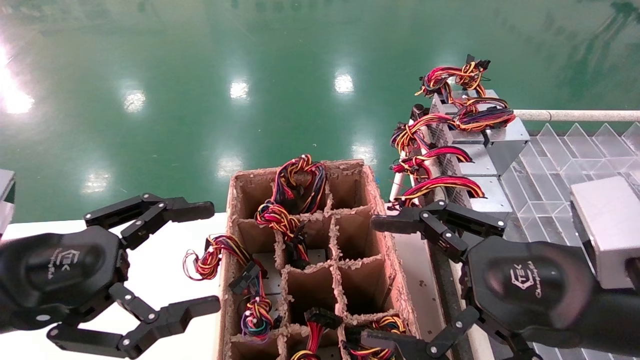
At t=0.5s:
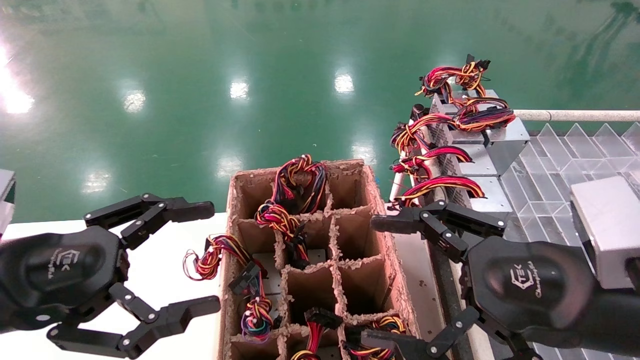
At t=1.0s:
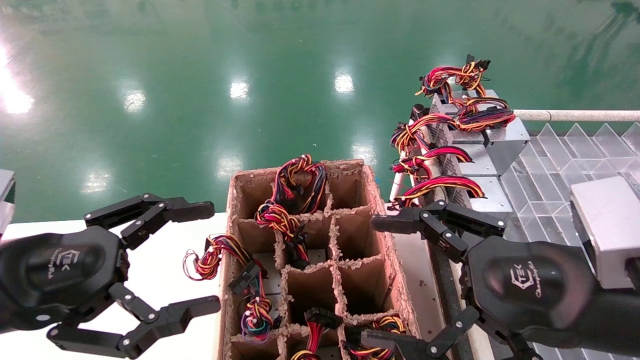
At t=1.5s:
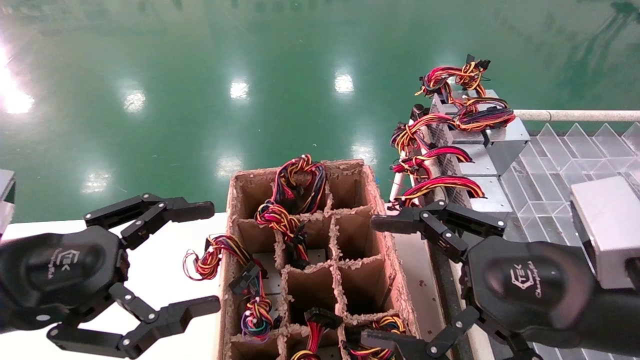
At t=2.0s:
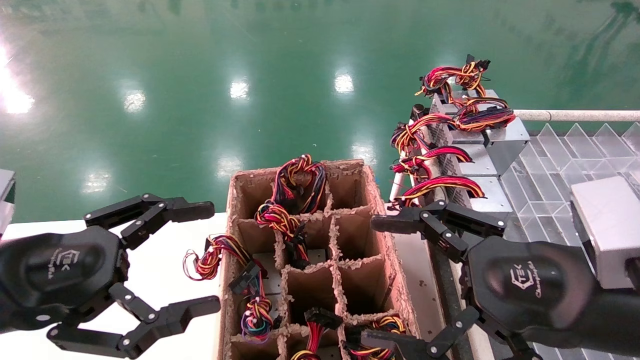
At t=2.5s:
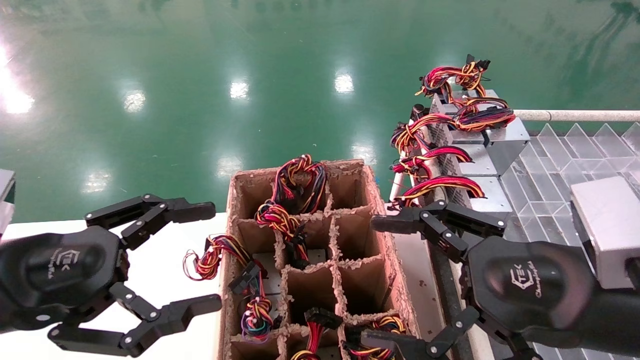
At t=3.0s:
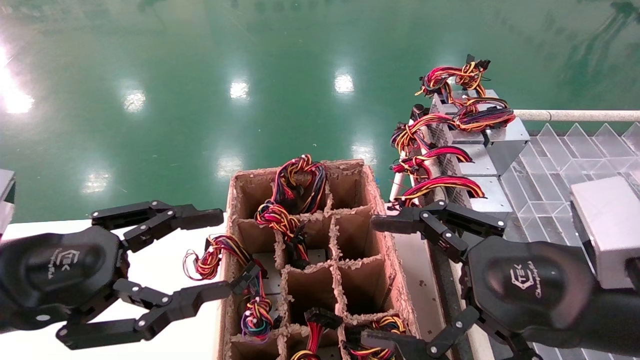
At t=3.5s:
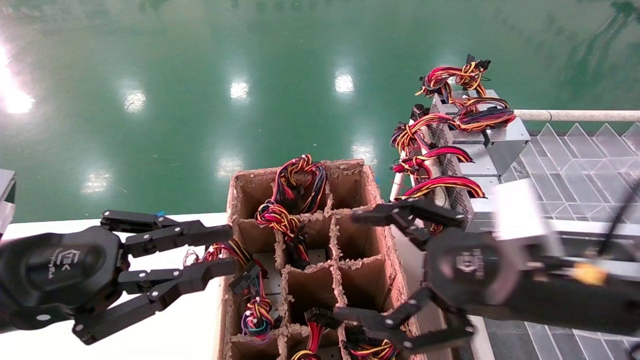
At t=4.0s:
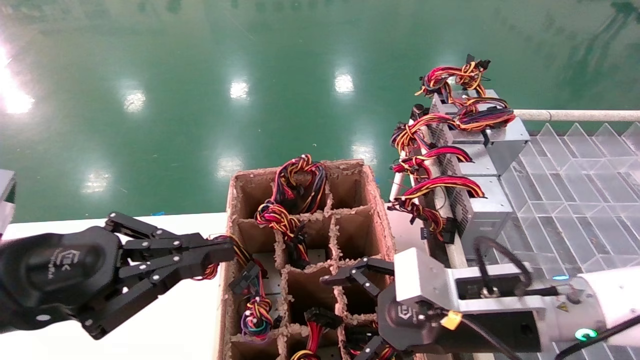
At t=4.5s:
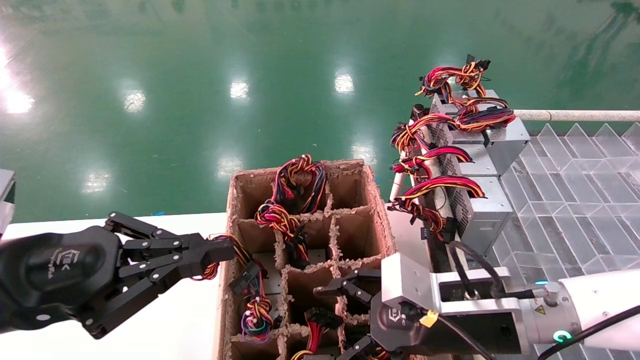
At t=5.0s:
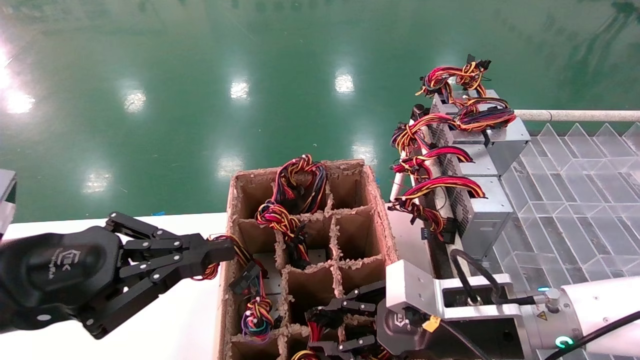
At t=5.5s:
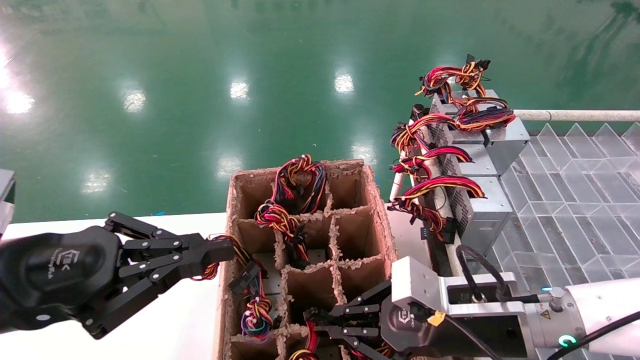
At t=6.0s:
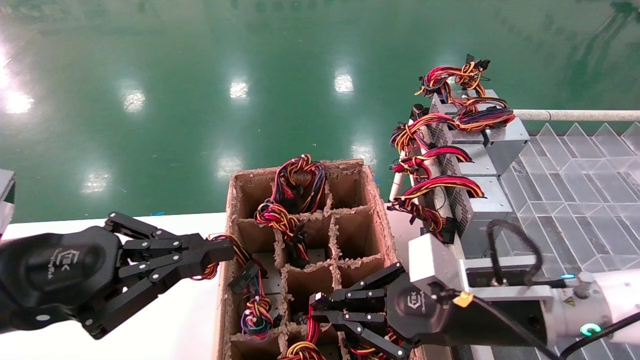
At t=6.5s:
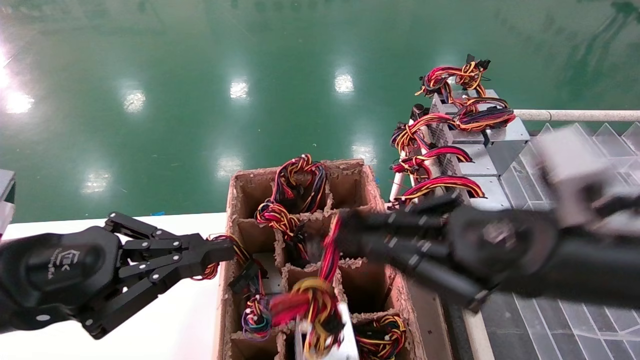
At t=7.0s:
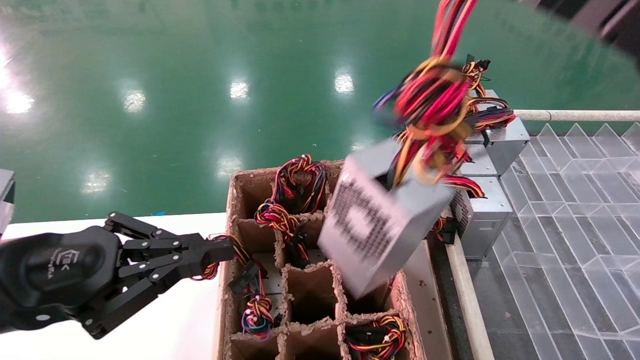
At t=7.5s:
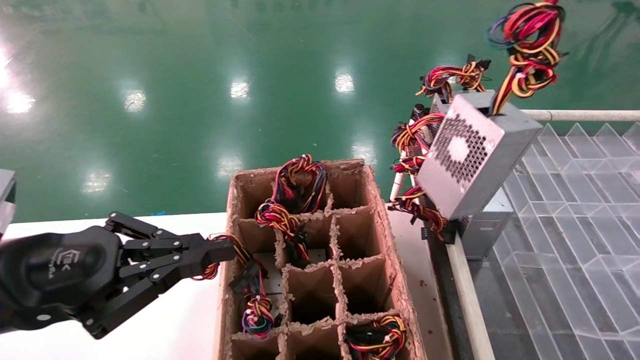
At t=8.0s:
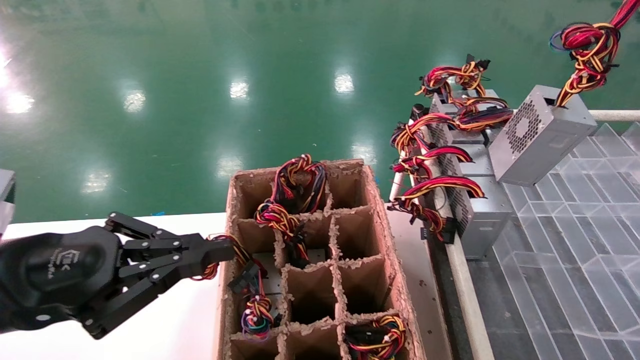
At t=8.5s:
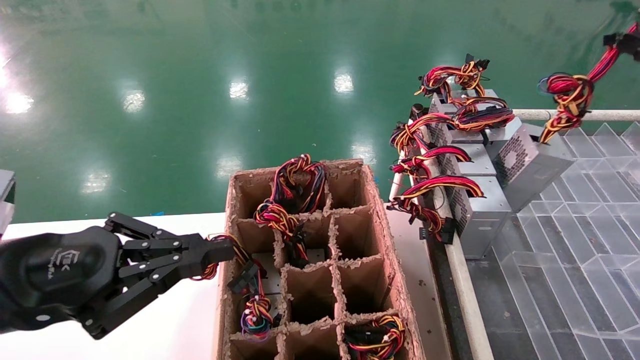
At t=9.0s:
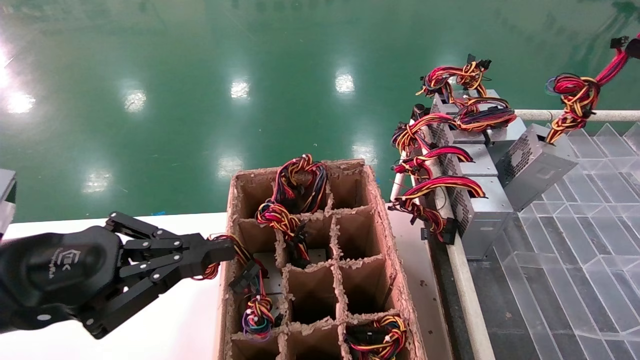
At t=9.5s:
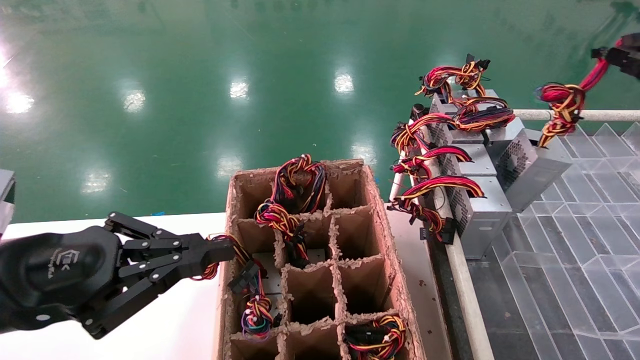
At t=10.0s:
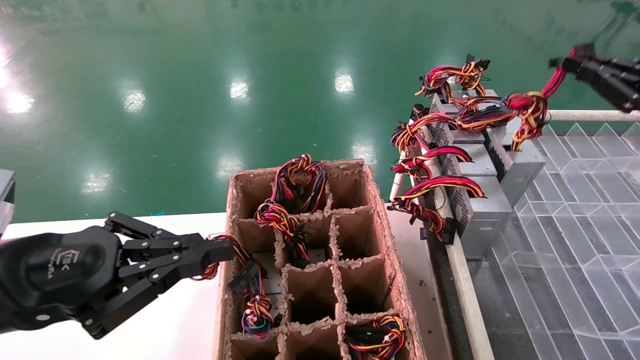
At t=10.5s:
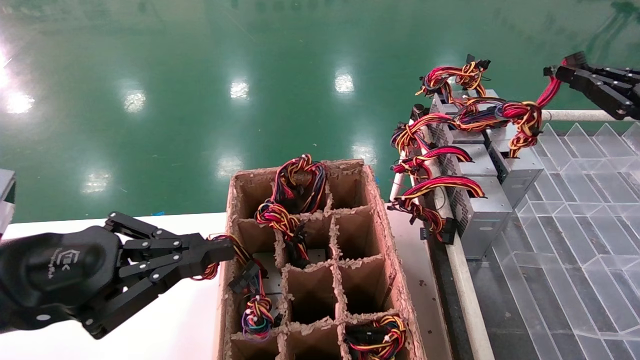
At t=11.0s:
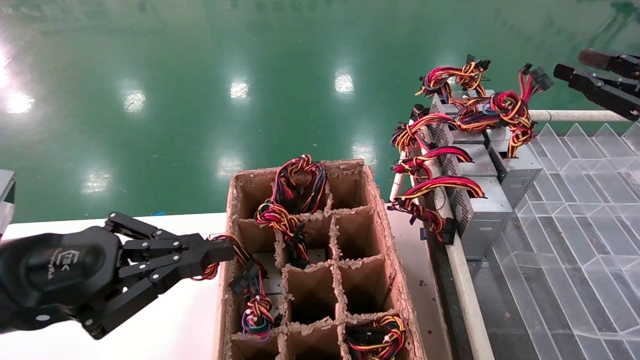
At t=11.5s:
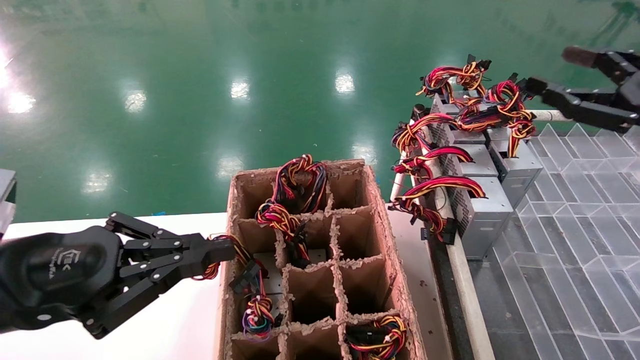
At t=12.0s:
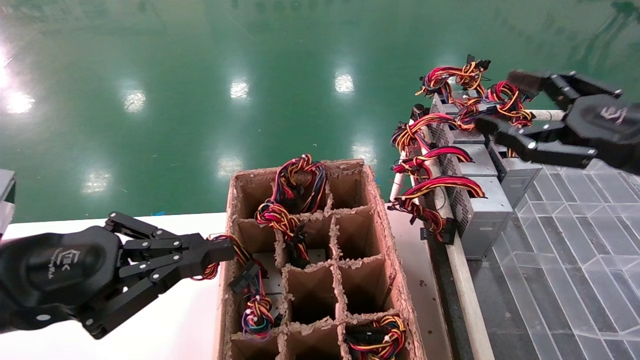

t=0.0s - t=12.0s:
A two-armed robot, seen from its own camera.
Step, t=4.0s - t=5.5s: Grab the main unit power supply from the containment box.
Step, t=6.0s - t=11.0s: Place the main unit power supply in the designated area.
t=0.0s - t=2.0s: The two grippers keep their place.
t=2.0s - t=4.0s: The left gripper closes its fingers, while the right gripper heads forward, downward and to the left, covering some 10 cm.
t=4.0s - t=6.0s: The right gripper closes its fingers.
t=6.0s - t=8.0s: The right gripper moves to the right and upward, approximately 35 cm.
t=8.0s - t=10.0s: The right gripper goes some 5 cm forward.
t=10.0s - t=12.0s: The right gripper travels to the left by approximately 10 cm, and opens up.

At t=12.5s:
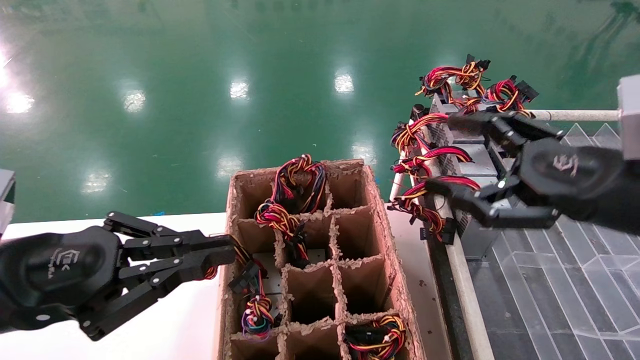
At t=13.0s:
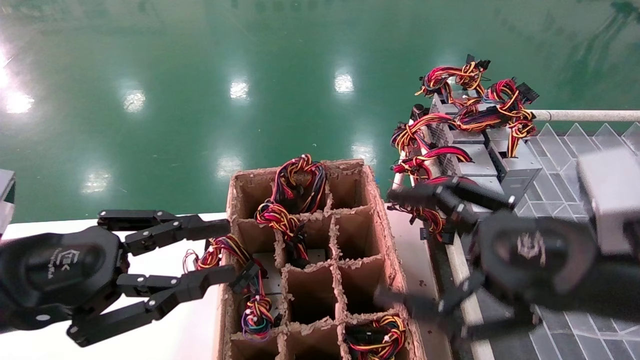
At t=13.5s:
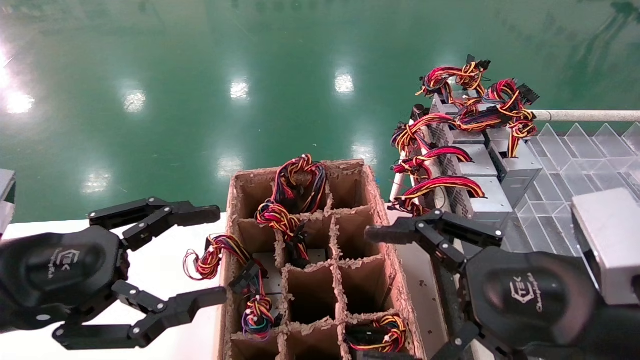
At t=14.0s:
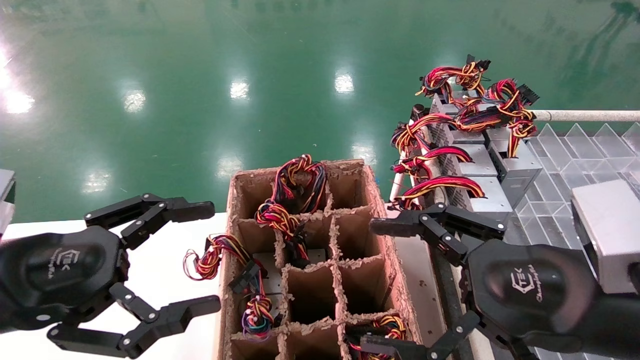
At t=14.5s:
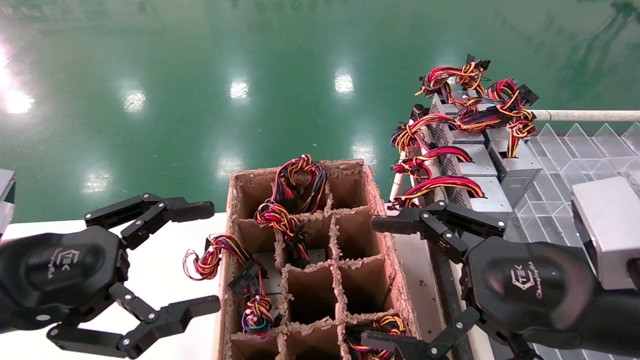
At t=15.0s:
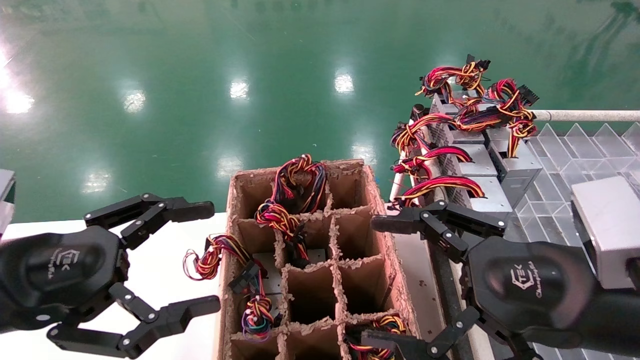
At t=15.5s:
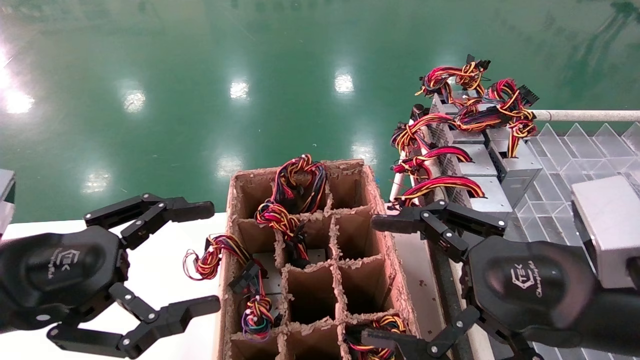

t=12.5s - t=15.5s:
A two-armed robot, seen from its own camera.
t=12.5s - t=14.0s: The right gripper goes some 10 cm to the left and backward. The left gripper opens up.
t=14.0s - t=15.5s: The two grippers keep their place.
